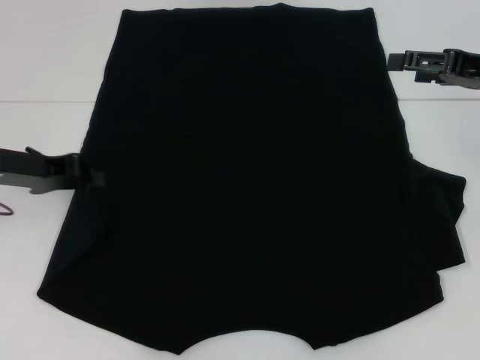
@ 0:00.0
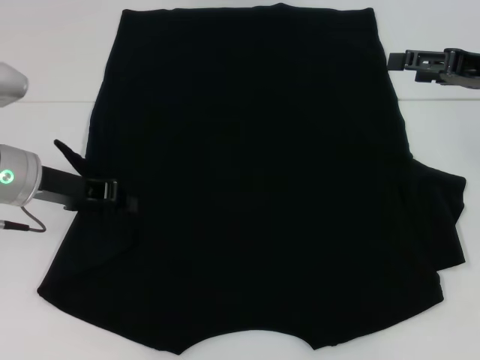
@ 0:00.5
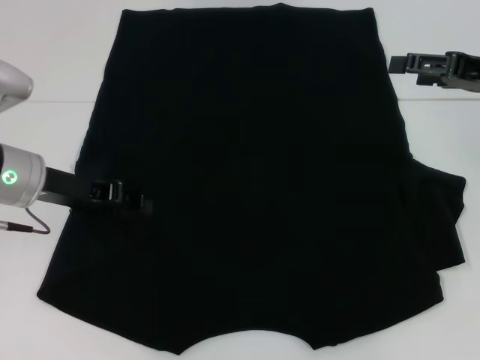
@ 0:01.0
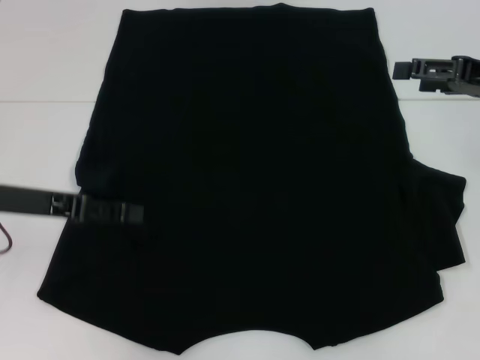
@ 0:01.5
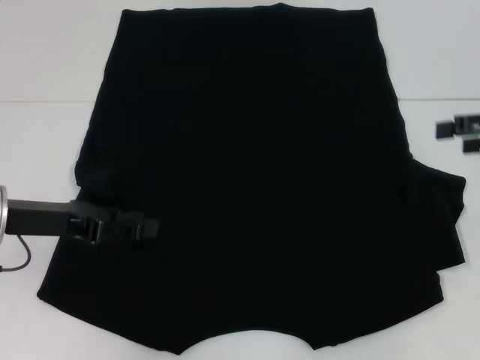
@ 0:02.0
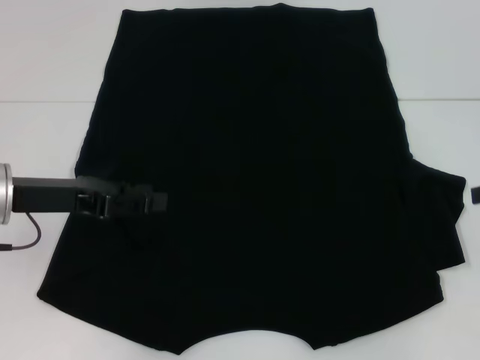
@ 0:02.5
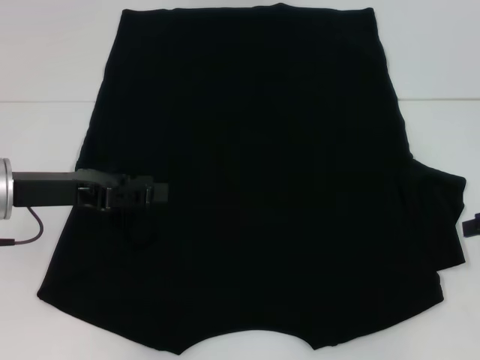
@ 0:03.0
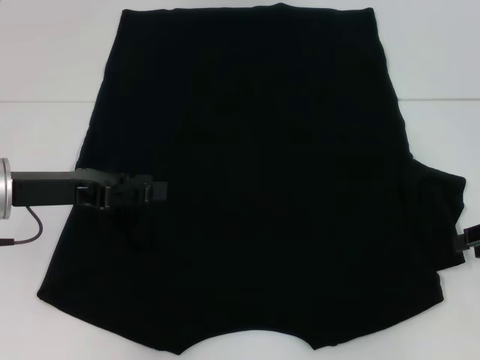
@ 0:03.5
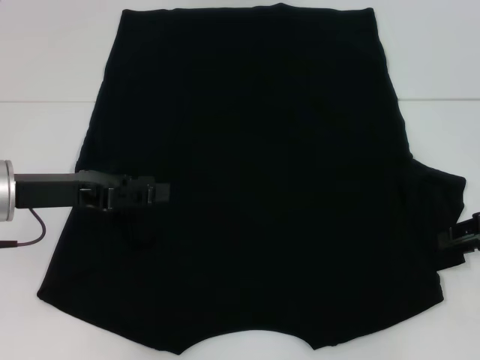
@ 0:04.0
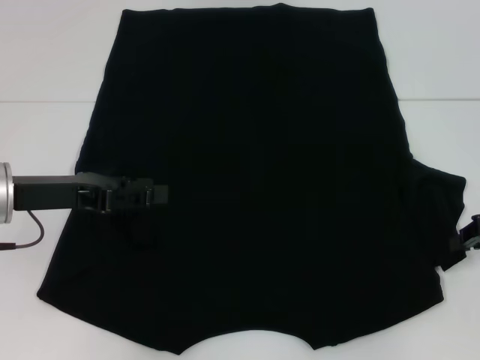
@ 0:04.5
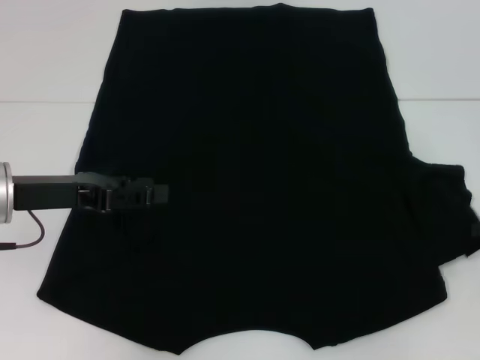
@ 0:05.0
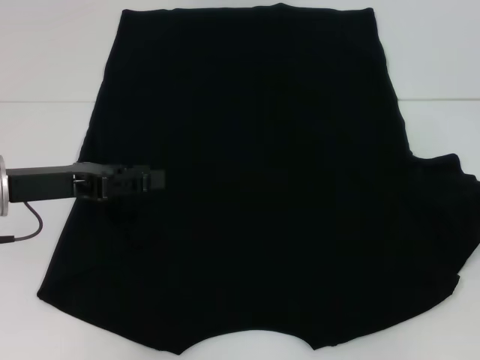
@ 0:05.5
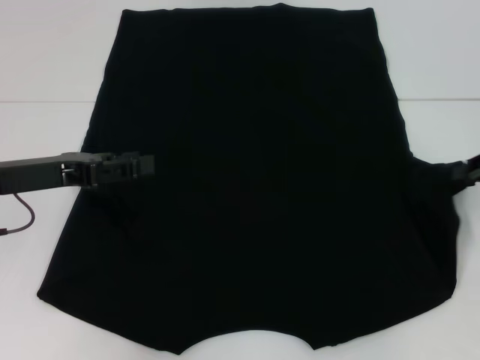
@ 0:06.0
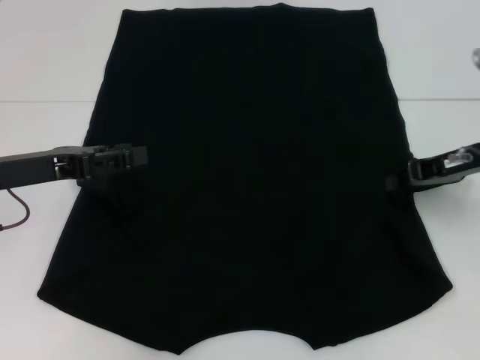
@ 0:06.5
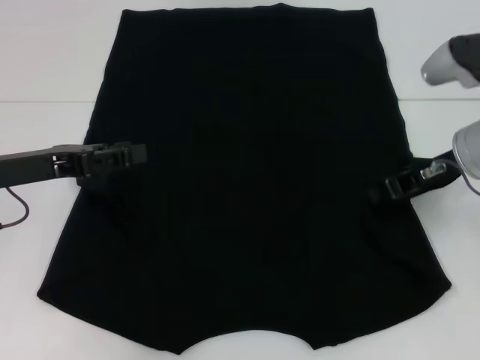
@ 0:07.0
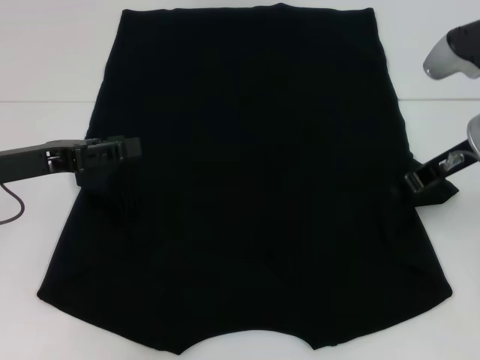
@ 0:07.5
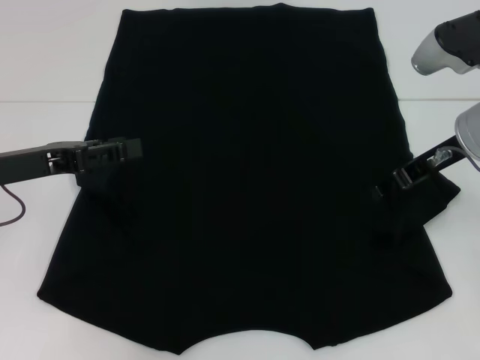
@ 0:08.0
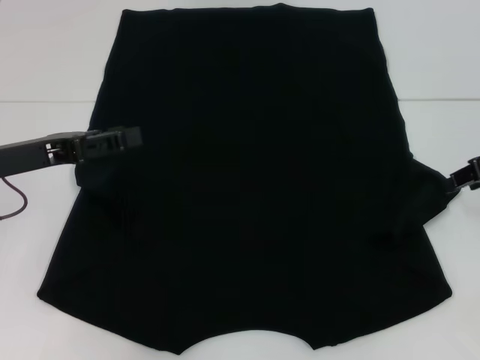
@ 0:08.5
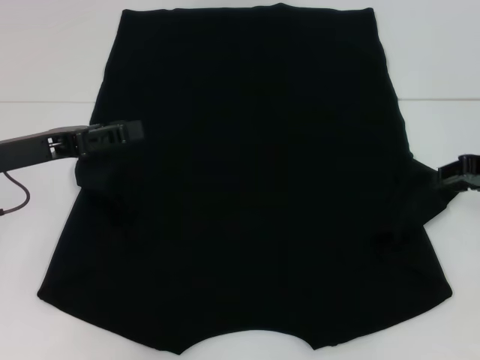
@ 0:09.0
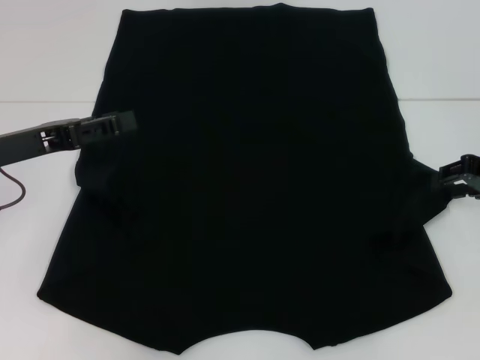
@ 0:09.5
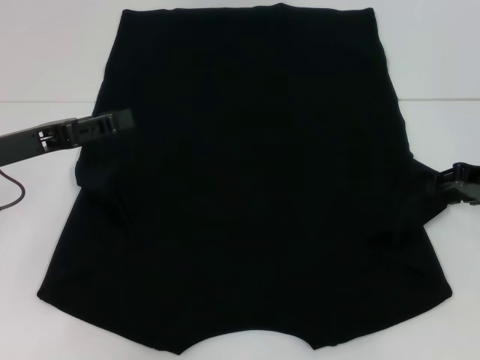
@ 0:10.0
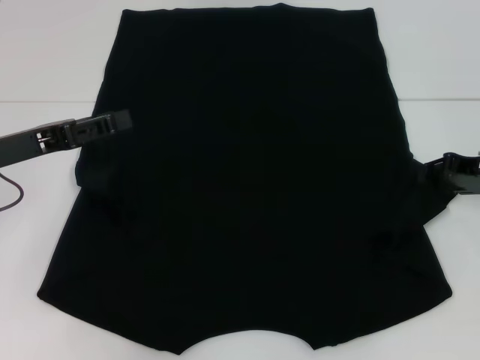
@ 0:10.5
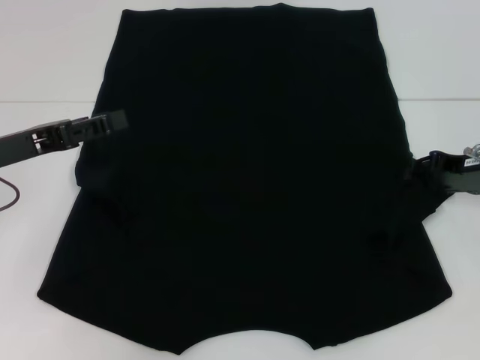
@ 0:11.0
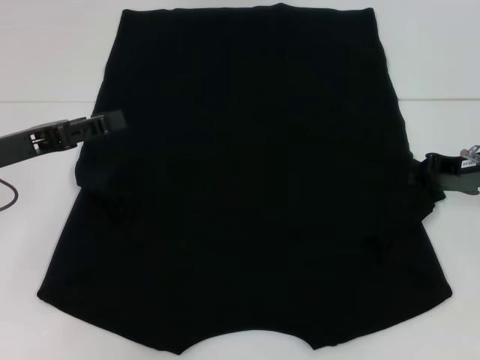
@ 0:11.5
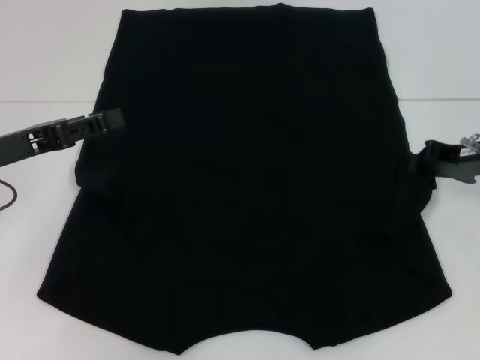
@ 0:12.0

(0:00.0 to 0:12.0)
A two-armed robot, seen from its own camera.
0:00.0 - 0:02.0: The left gripper moves backward, approximately 5 cm, and opens up; the right gripper heads to the right, covering about 5 cm.
0:02.0 - 0:04.0: The right gripper is displaced downward by roughly 5 cm, and closes its fingers.
0:04.0 - 0:06.0: The right gripper closes.
0:06.0 - 0:08.0: The right gripper heads to the left, covering approximately 10 cm.
0:08.0 - 0:10.0: The right gripper moves to the right and downward, about 10 cm.
0:10.0 - 0:12.0: The right gripper closes its fingers.

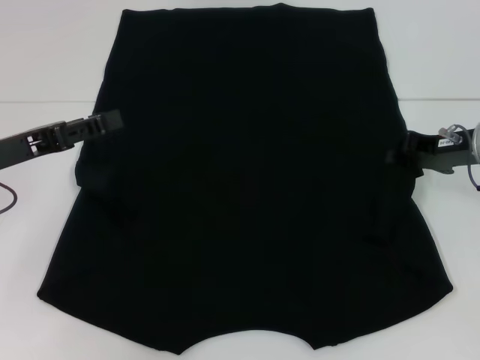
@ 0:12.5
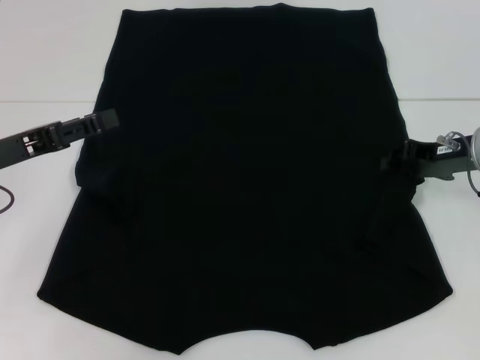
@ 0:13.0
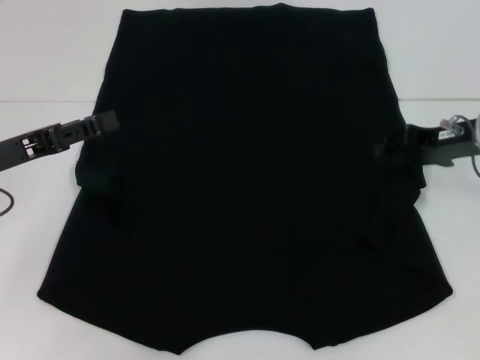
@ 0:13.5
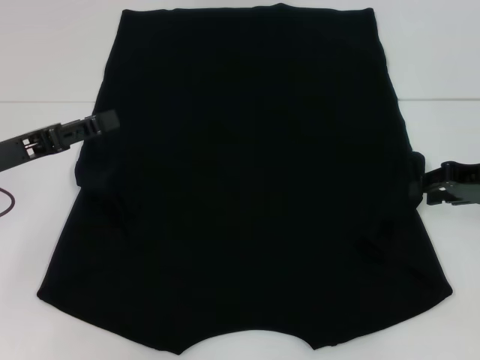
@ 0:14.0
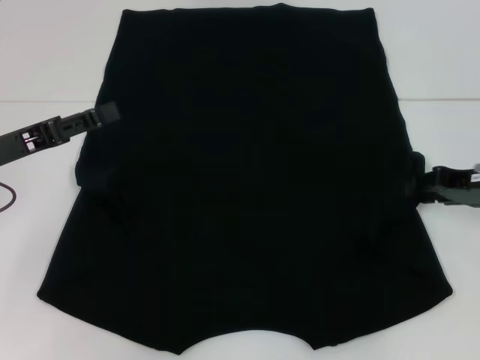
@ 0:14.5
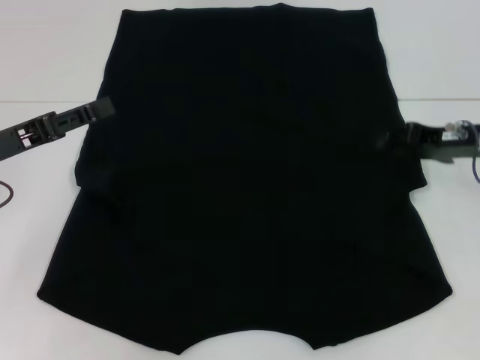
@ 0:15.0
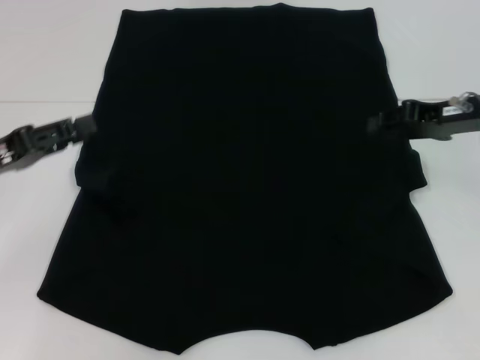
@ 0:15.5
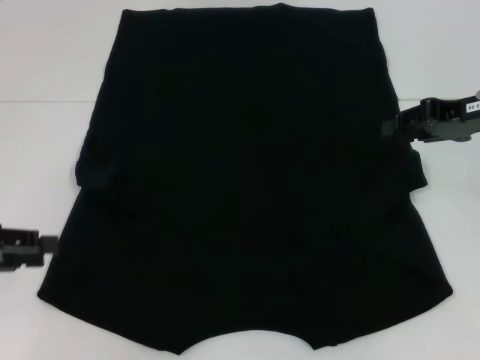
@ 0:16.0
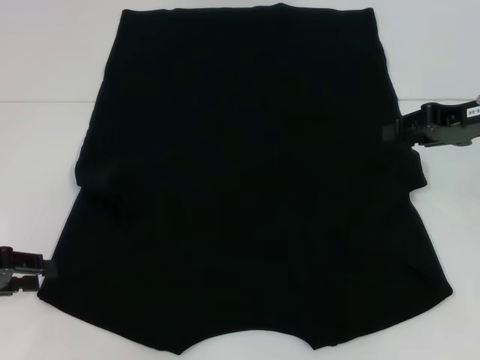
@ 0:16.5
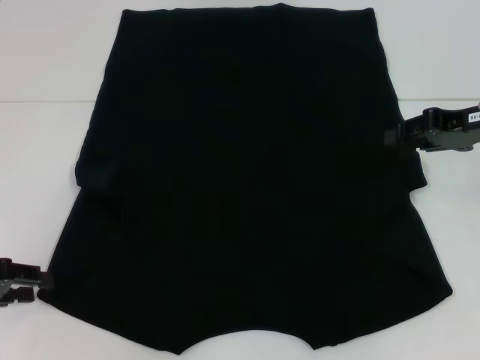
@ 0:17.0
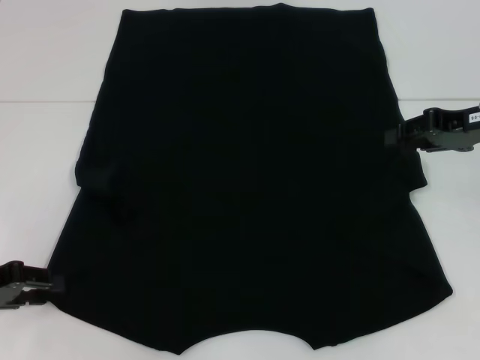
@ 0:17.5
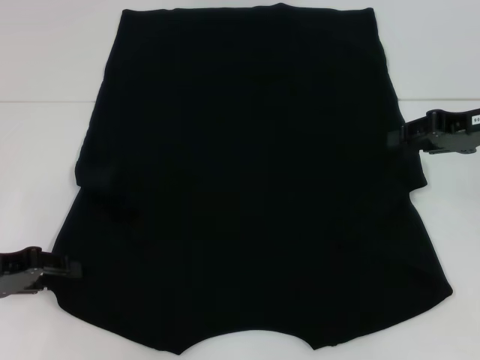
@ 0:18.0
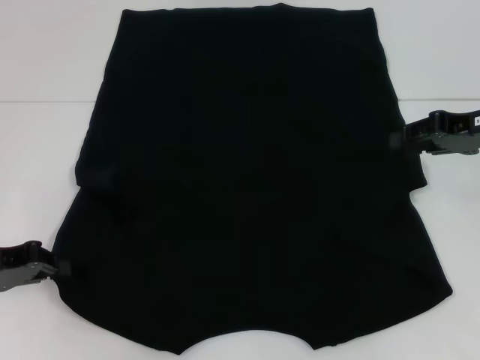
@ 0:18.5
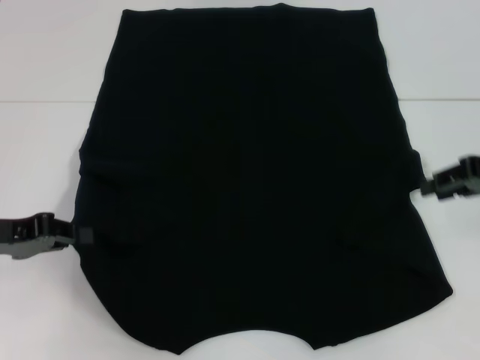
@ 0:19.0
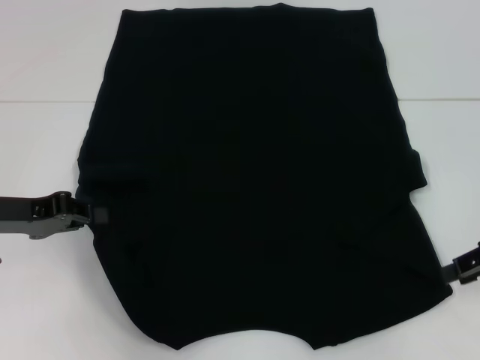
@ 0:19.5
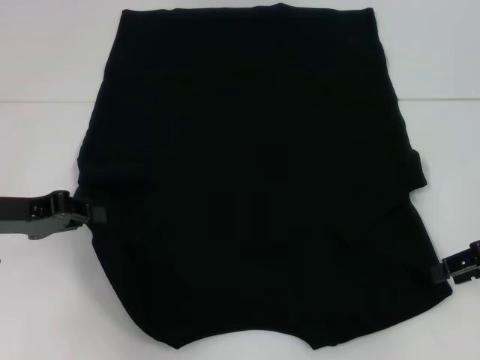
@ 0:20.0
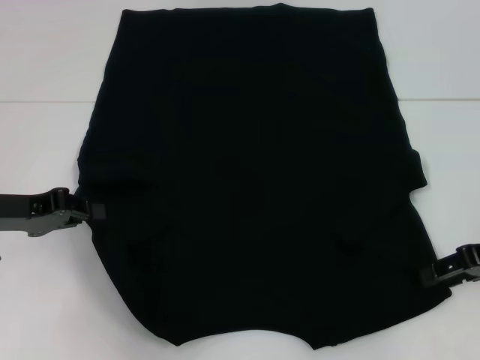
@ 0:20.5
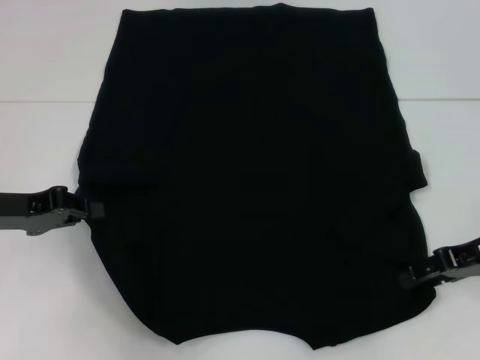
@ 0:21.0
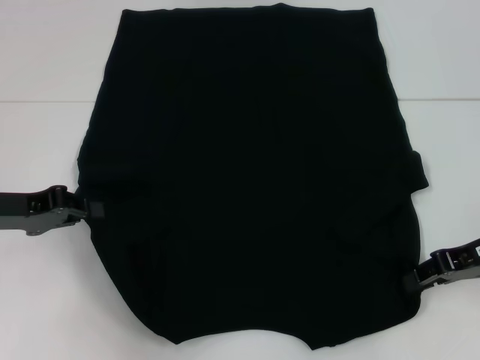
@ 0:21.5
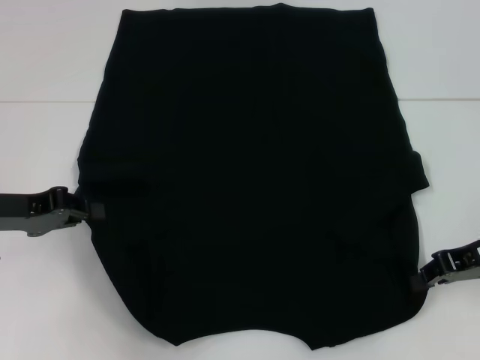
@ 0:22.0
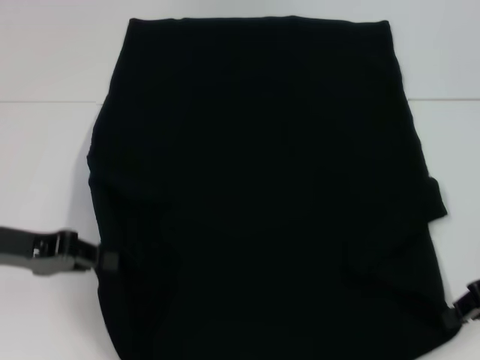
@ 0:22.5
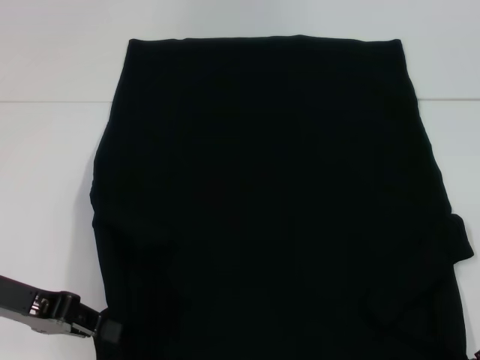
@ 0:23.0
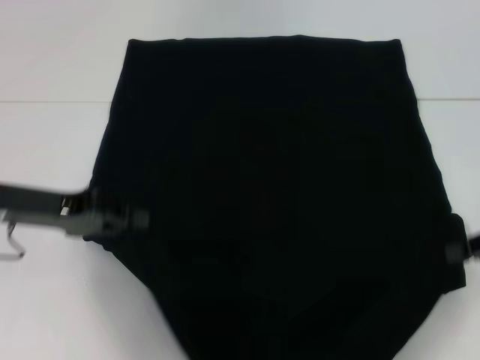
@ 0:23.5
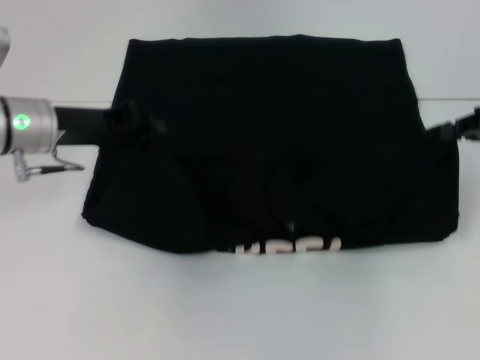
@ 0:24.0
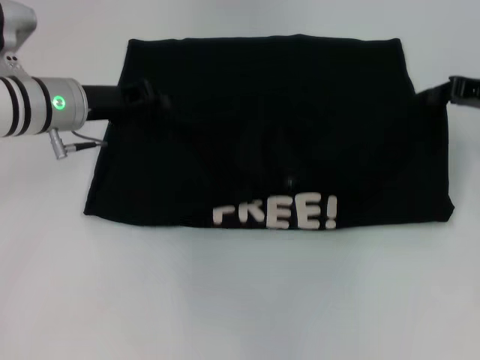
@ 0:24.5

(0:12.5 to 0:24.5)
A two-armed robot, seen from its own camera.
Step, 0:12.5 - 0:15.0: Fold the bottom right sleeve with your right hand.
Step, 0:15.5 - 0:19.0: Grab the bottom left corner with your left hand.
Step, 0:19.5 - 0:22.0: Grab the bottom right corner with your right hand.
0:12.5 - 0:14.5: The right gripper opens up.
0:14.5 - 0:16.5: The right gripper heads upward, covering approximately 5 cm. The left gripper heads to the left, covering roughly 5 cm.
0:16.5 - 0:18.5: There are only small adjustments of the grippers.
0:18.5 - 0:20.5: The right gripper heads backward and downward, covering some 10 cm.
0:20.5 - 0:22.5: The right gripper closes its fingers.
0:22.5 - 0:24.5: The left gripper moves forward and to the right, some 15 cm. The right gripper is displaced forward by about 10 cm.

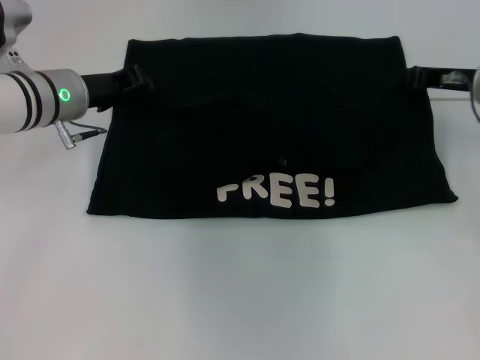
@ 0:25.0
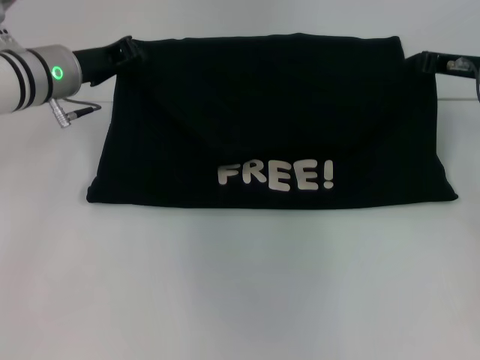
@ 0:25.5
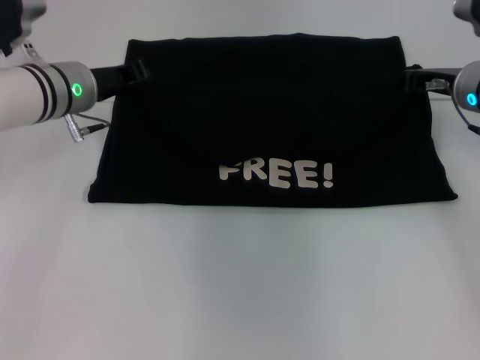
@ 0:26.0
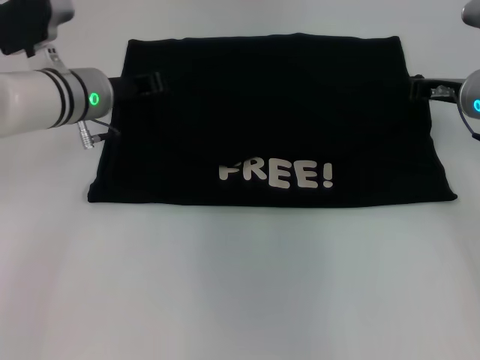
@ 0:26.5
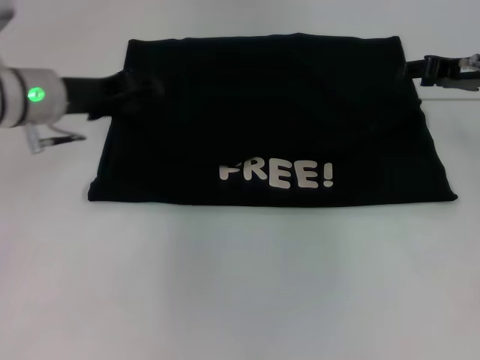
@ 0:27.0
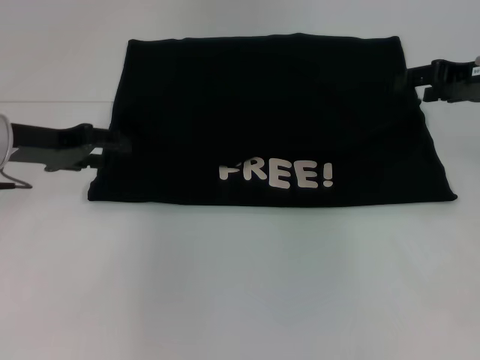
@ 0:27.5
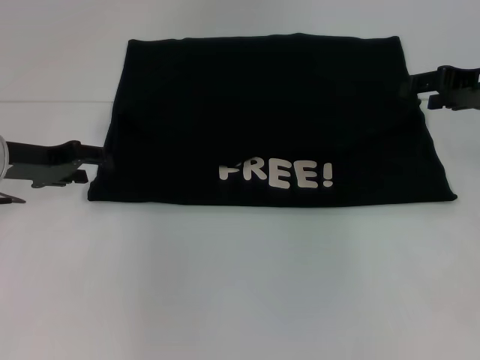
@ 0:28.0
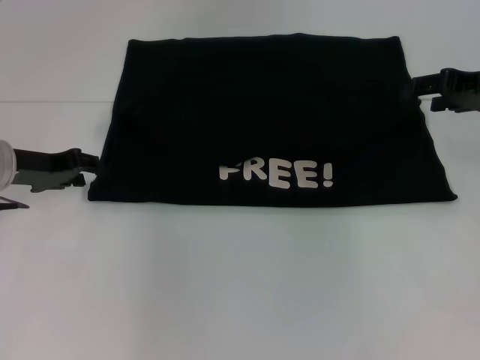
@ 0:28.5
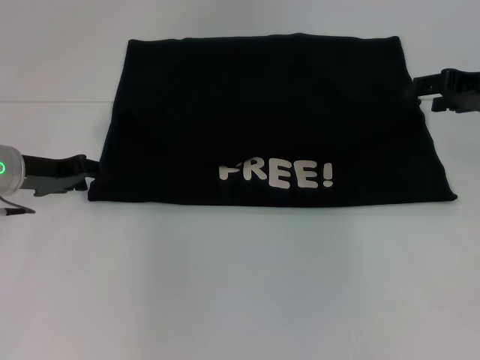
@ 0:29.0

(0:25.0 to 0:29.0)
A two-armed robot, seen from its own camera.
0:25.0 - 0:27.0: The left gripper opens up.
0:27.0 - 0:29.0: The right gripper opens up. Meanwhile the left gripper moves downward and to the left, roughly 10 cm.
